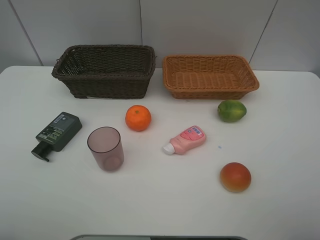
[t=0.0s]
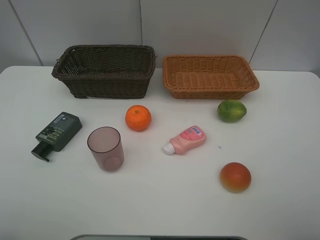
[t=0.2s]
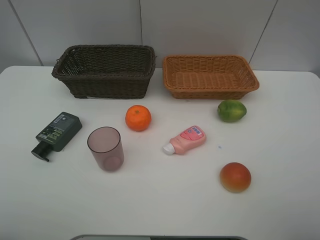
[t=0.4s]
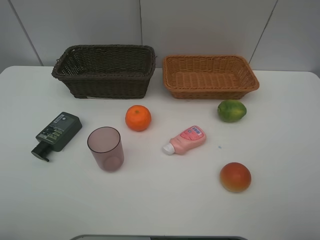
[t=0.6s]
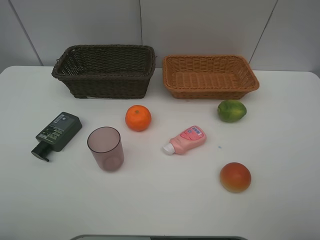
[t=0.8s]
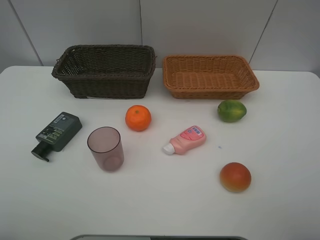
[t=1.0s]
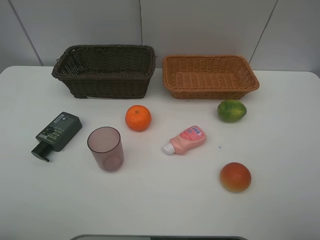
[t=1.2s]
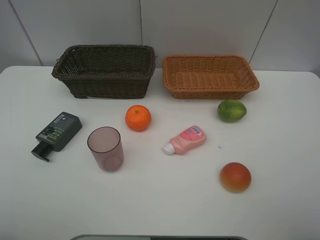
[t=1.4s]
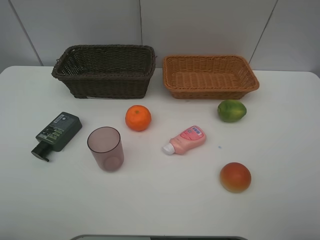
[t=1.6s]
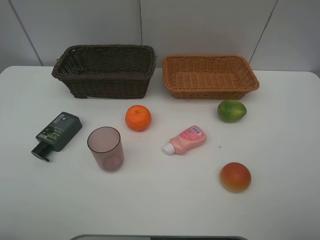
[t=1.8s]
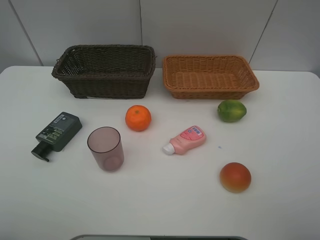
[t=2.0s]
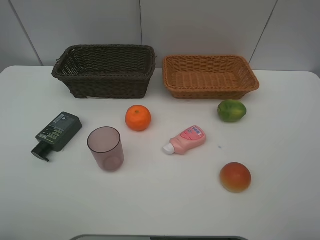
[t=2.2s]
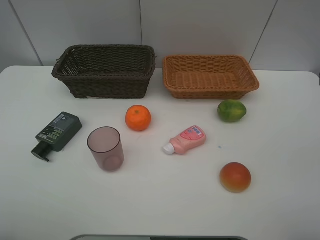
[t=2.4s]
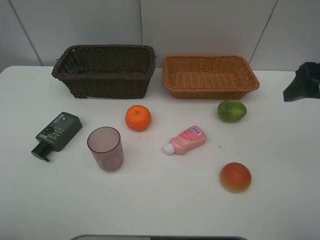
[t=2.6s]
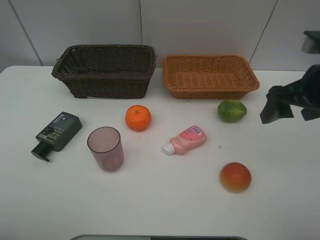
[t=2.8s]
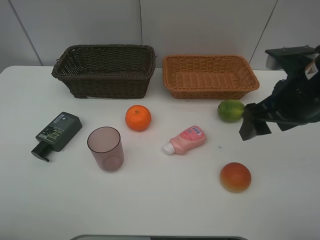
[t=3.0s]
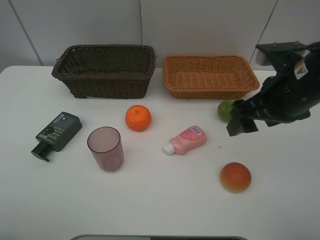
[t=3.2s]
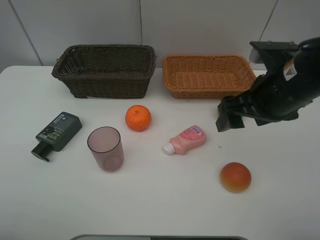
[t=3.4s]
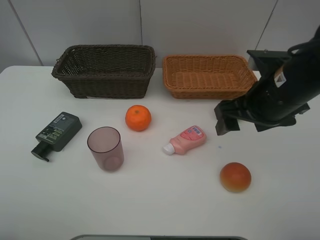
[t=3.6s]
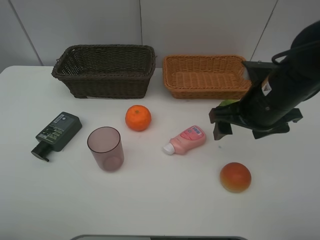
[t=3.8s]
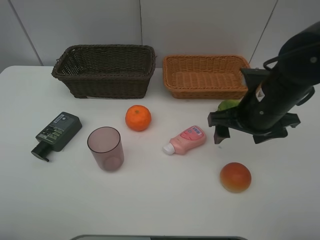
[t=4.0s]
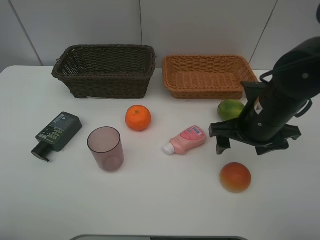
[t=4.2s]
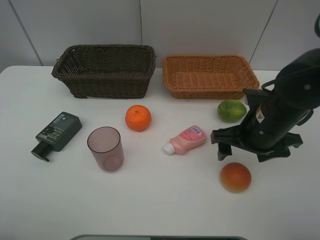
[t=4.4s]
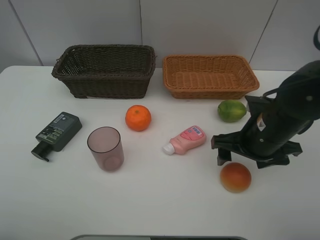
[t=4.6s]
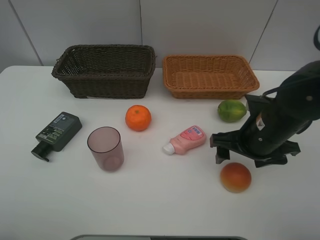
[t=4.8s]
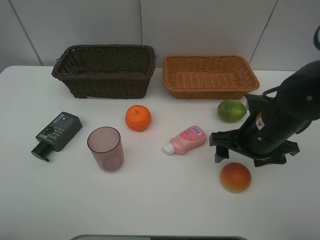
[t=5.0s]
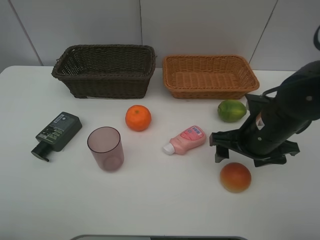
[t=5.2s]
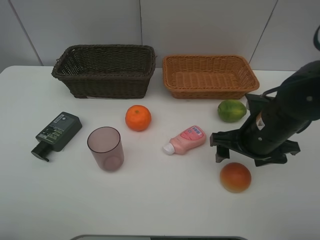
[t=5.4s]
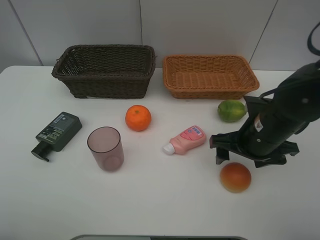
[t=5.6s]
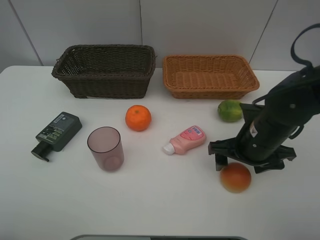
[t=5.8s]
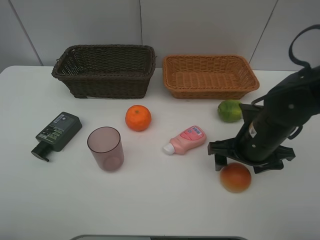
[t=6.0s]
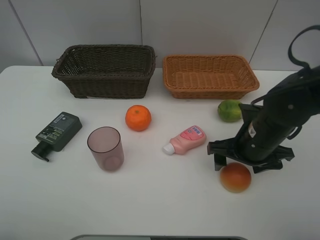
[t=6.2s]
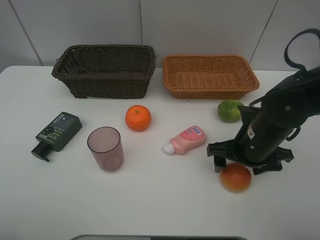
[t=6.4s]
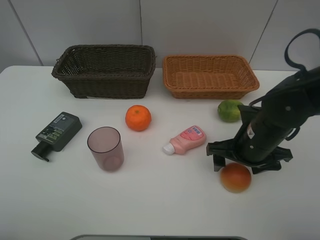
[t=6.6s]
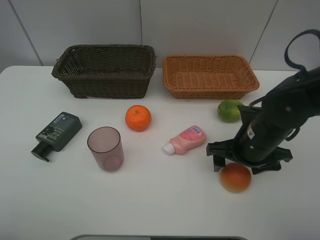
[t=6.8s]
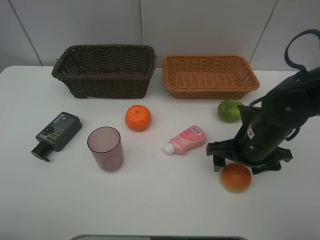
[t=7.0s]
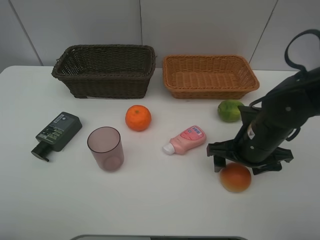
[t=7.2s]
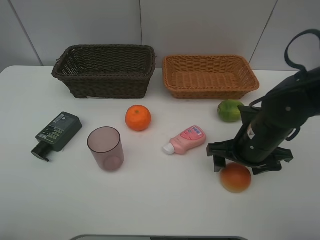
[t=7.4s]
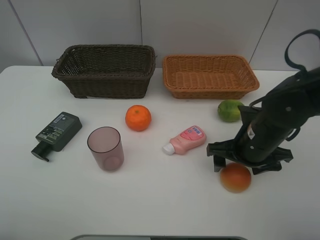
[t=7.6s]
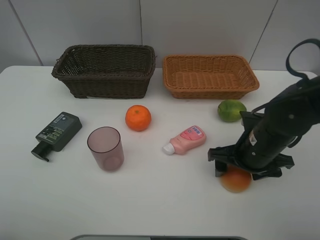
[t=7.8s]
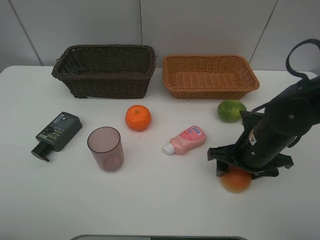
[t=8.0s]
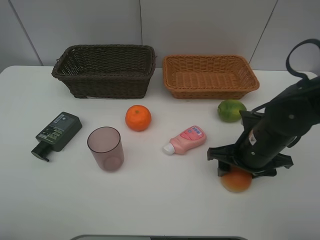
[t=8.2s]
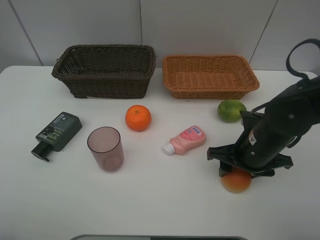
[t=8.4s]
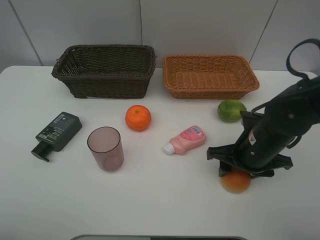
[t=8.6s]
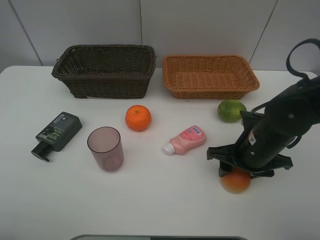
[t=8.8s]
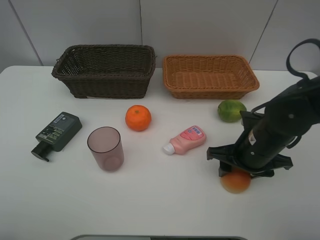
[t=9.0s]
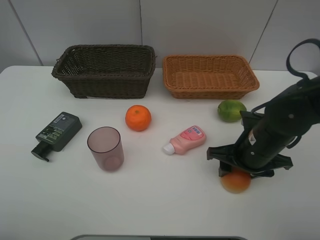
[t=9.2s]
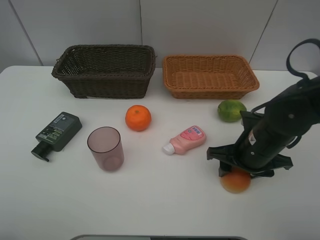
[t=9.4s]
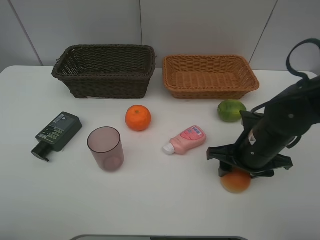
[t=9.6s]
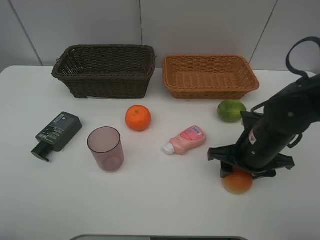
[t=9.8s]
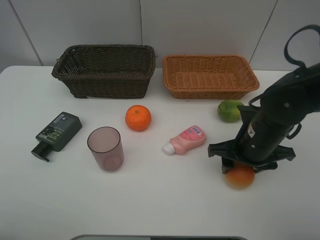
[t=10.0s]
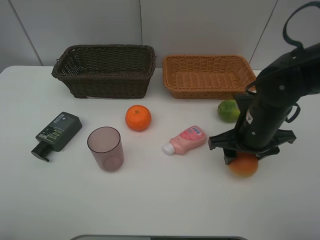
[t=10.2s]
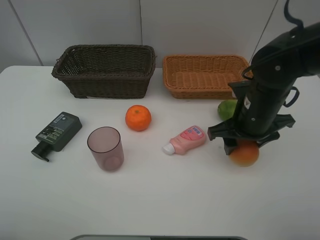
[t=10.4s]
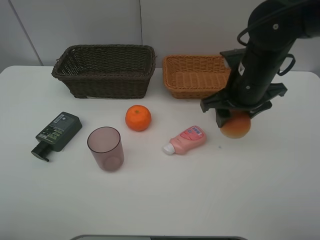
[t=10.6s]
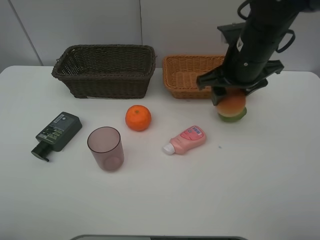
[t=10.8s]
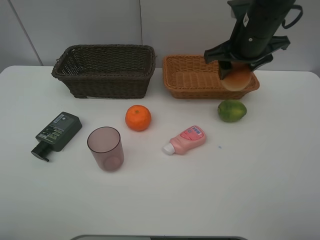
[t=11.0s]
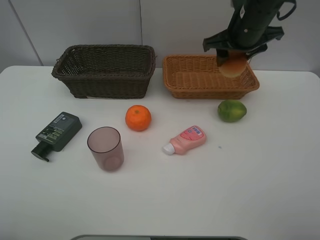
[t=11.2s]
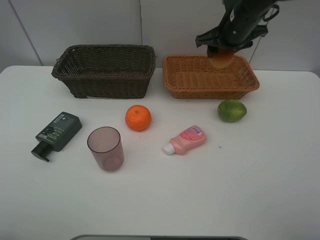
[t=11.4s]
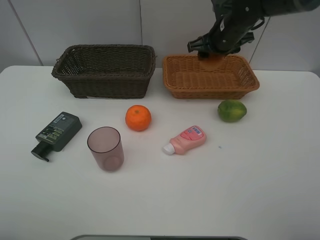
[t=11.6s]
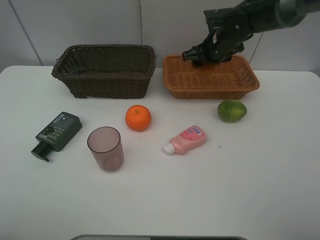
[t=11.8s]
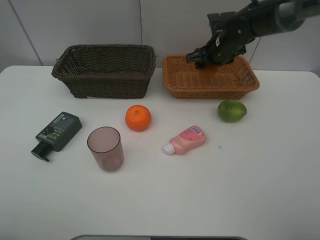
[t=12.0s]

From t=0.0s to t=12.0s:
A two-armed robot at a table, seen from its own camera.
Task of the whole recording: place multiple objects separately in different baskets.
From t=0.0s to t=1.6s: Both grippers stay put.
From t=1.6s to t=3.0s: The right gripper travels forward and to the left by approximately 25 cm.
From t=3.0s to t=4.4s: The right gripper is displaced downward by approximately 10 cm.
From t=4.4s to t=6.0s: The grippers move only a little.
From t=6.0s to t=7.6s: Both grippers stay about where they are.
From t=7.6s to t=9.0s: The right gripper closes its fingers.
From t=9.0s to t=10.4s: The right gripper is displaced upward by approximately 5 cm.
From t=10.4s to t=12.0s: The right gripper heads forward, covering some 20 cm.

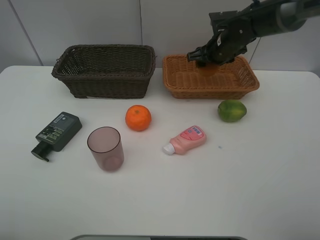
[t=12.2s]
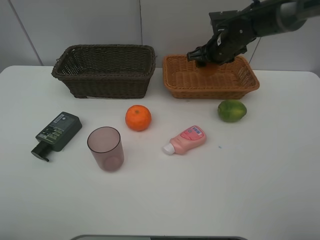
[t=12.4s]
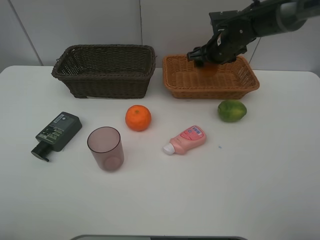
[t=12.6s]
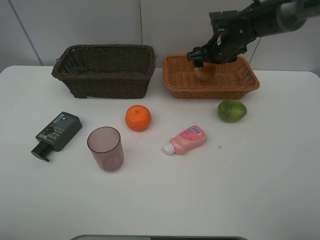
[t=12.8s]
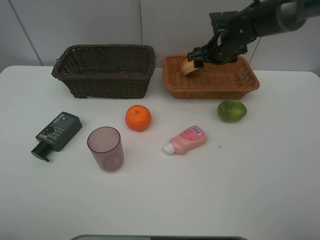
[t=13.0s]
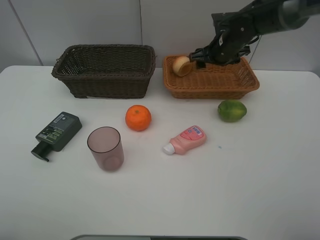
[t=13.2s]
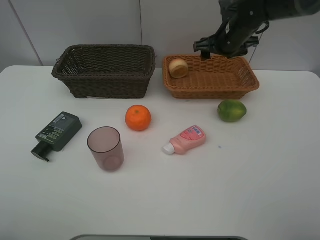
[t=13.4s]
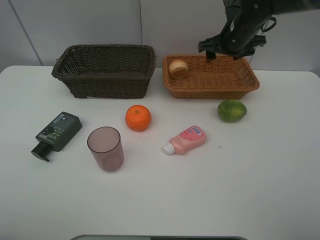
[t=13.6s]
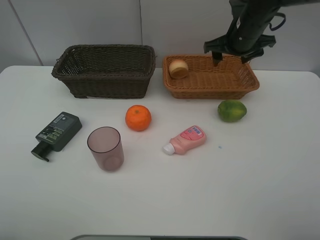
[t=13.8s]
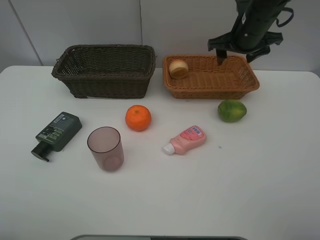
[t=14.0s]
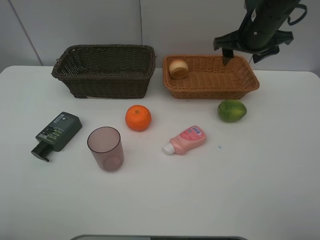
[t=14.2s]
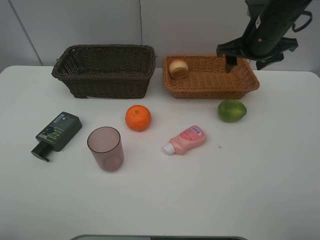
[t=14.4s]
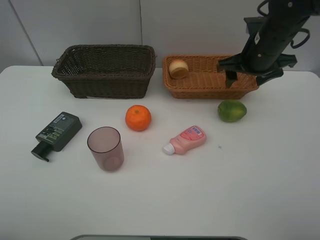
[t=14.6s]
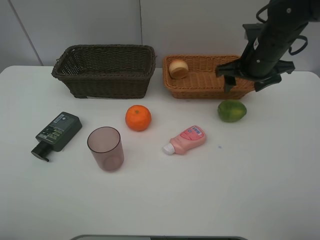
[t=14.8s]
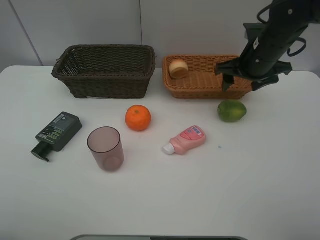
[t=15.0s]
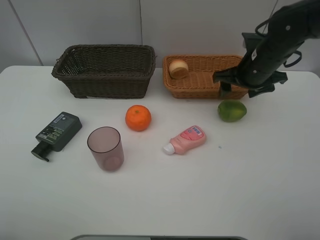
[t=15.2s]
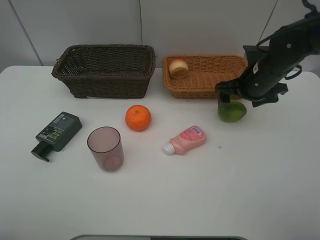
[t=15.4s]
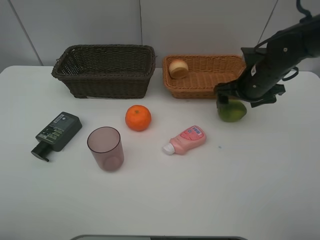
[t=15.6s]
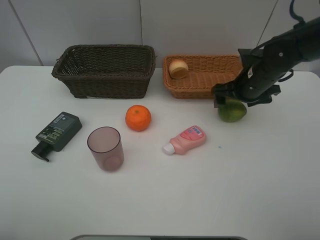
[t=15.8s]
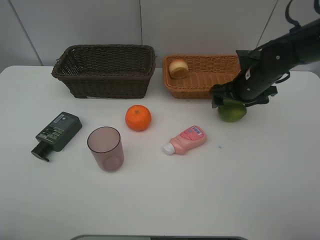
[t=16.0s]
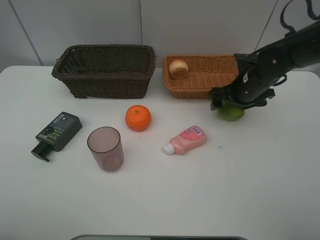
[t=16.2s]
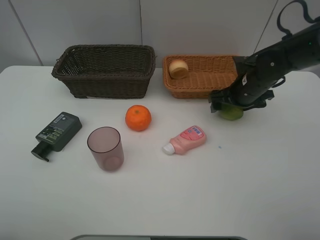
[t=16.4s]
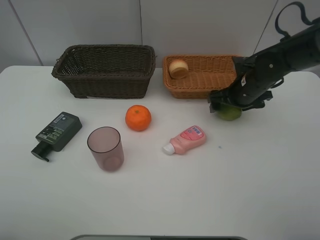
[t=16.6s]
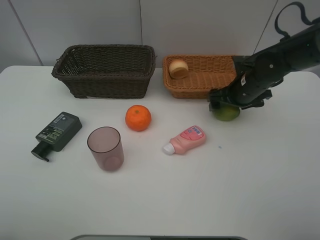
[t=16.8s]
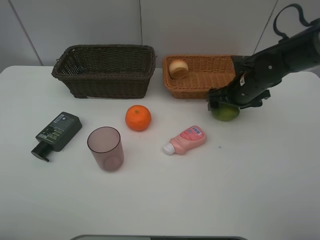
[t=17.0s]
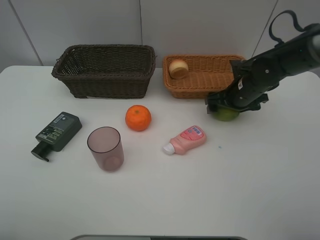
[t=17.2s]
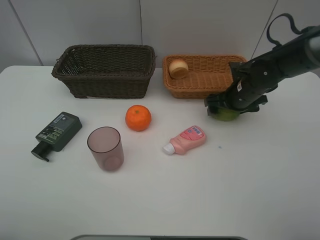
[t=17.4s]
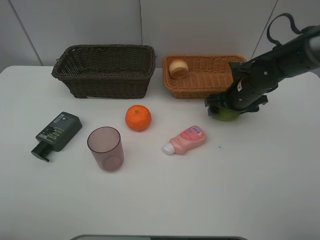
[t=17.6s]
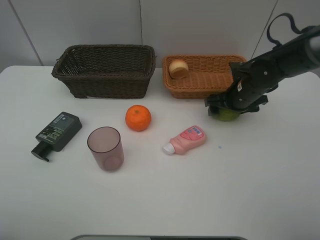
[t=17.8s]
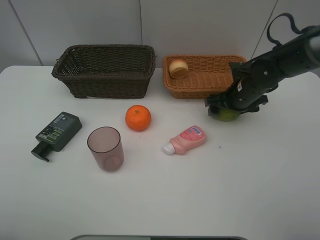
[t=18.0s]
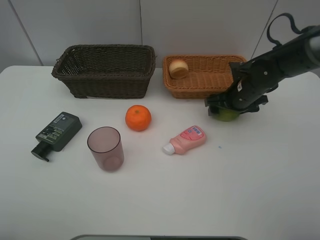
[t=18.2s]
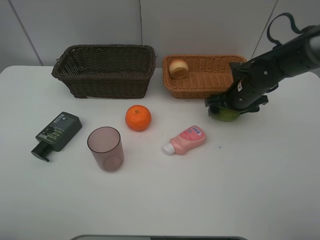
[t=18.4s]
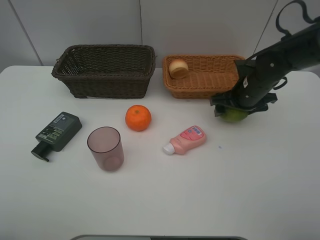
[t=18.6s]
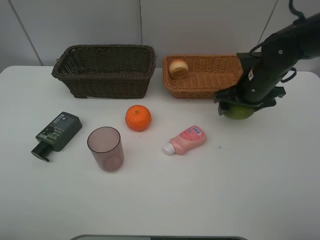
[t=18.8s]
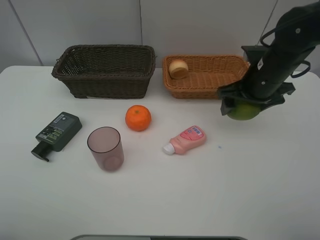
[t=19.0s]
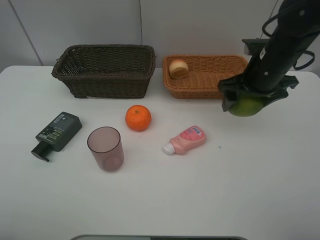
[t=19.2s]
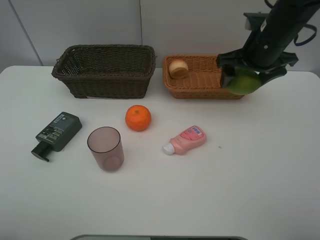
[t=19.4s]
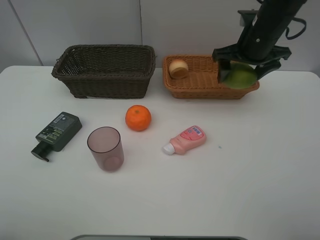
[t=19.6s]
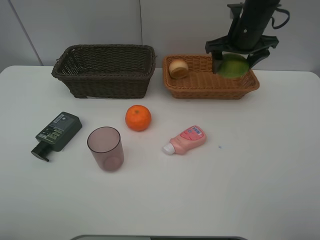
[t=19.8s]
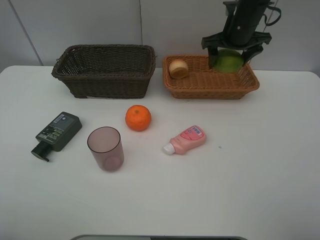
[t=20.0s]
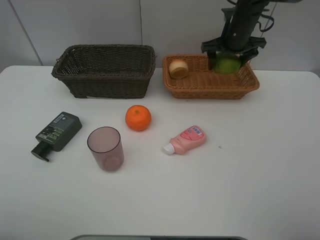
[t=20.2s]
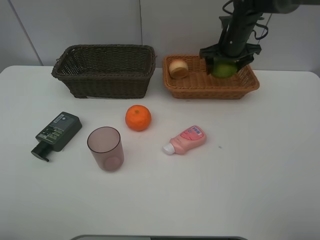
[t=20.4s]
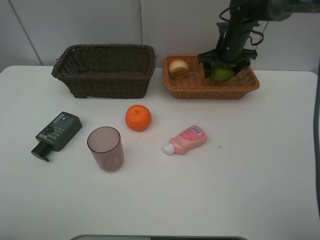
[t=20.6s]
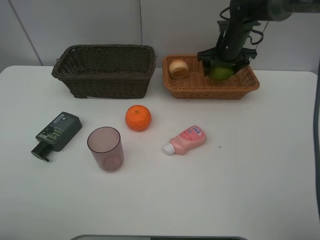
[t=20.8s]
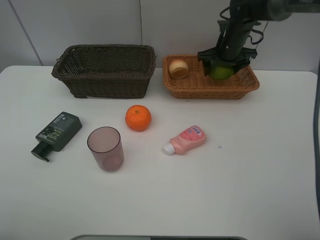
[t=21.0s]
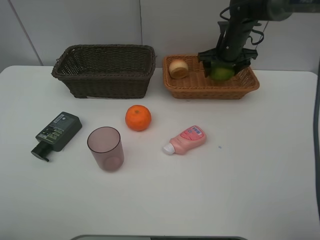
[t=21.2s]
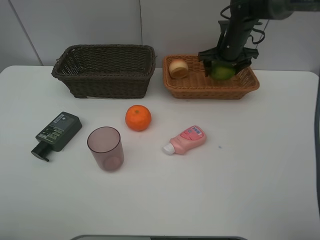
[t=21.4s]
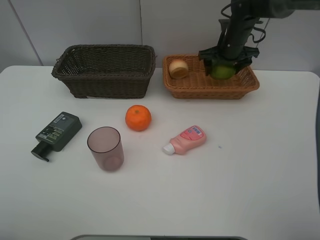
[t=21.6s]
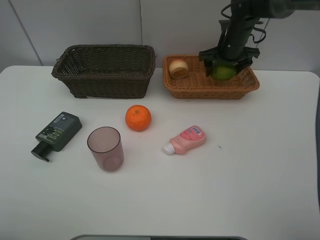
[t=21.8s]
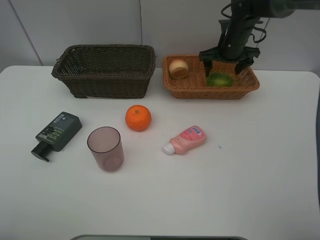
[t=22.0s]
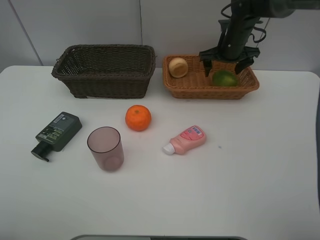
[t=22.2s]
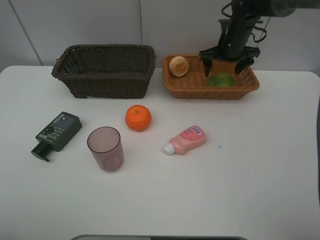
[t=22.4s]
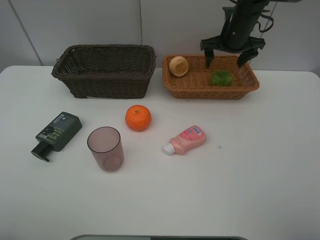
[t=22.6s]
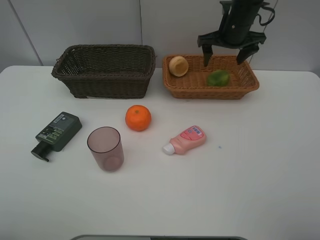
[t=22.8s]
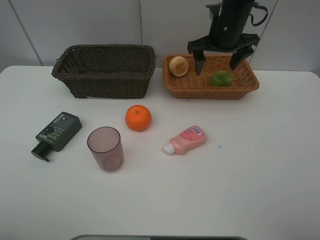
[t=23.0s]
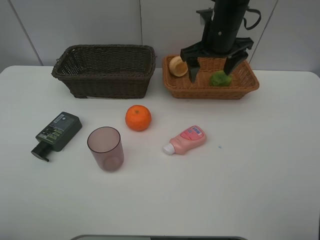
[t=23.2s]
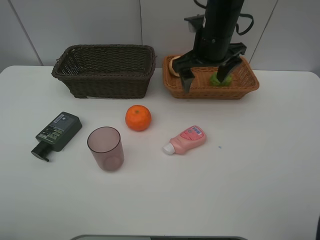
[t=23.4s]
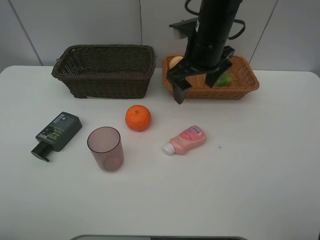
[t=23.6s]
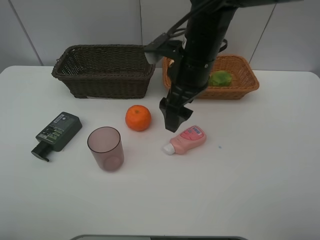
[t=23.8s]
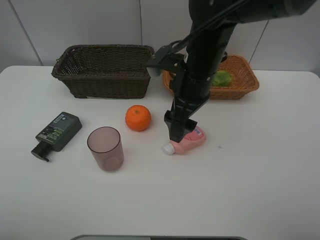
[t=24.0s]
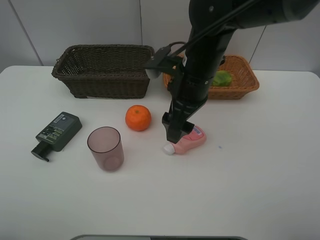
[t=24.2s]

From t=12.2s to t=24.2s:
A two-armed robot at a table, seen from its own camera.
Task of the whole recording: place multiple objects separately in different baskets.
From t=12.2s to t=13.8s: The right gripper goes about 5 cm upward, and opens.
From t=13.8s to t=15.2s: The right gripper shifts some 5 cm backward.
From t=15.2s to t=16.6s: The right gripper travels downward by some 5 cm, and opens up.
From t=16.6s to t=18.2s: The grippers move only a little.
From t=18.2s to t=19.8s: The right gripper shifts roughly 15 cm upward and forward.
From t=19.8s to t=21.2s: The right gripper goes roughly 10 cm downward and forward.
From t=21.2s to t=22.6s: The grippers make only small movements.
From t=22.6s to t=24.2s: The right gripper goes roughly 20 cm backward and to the left.
